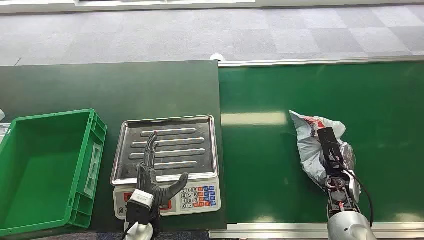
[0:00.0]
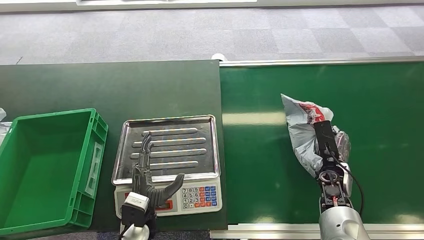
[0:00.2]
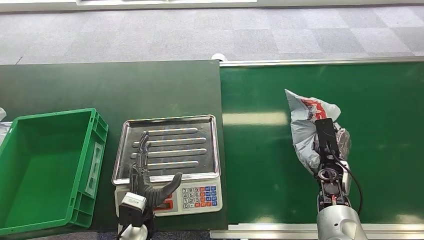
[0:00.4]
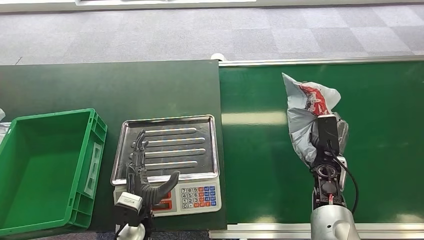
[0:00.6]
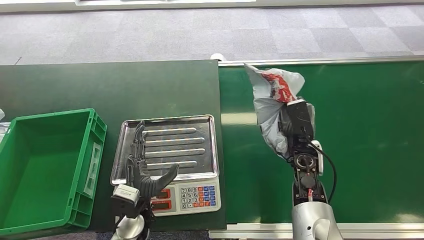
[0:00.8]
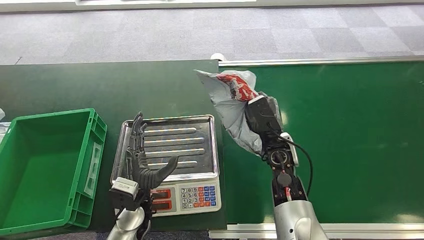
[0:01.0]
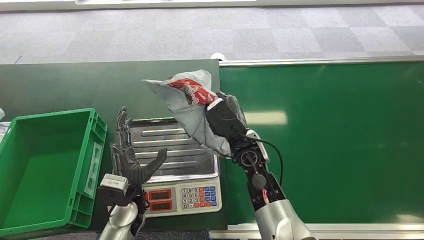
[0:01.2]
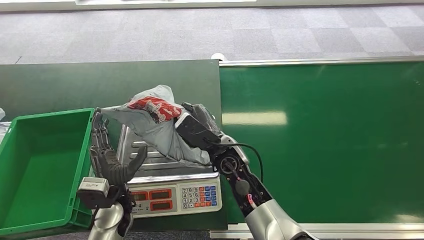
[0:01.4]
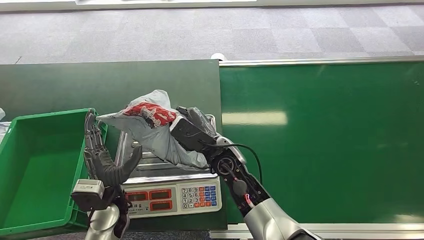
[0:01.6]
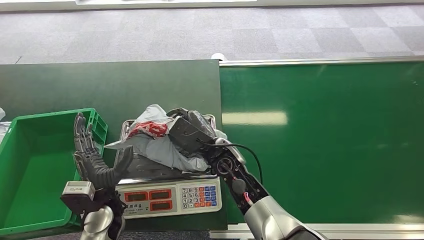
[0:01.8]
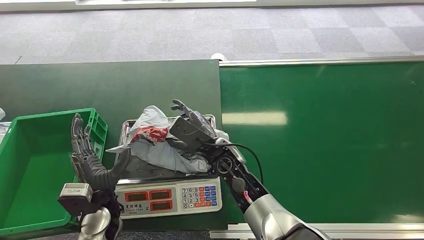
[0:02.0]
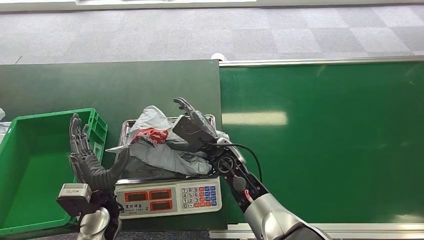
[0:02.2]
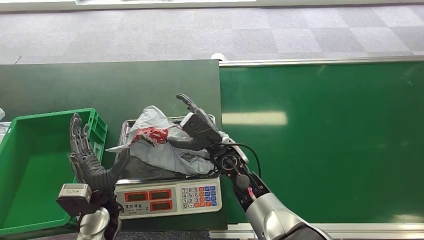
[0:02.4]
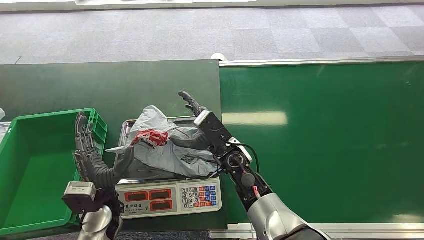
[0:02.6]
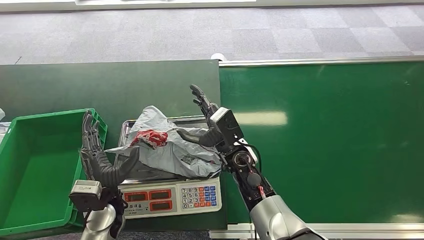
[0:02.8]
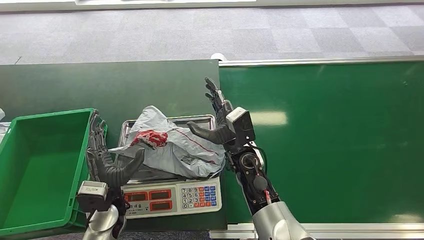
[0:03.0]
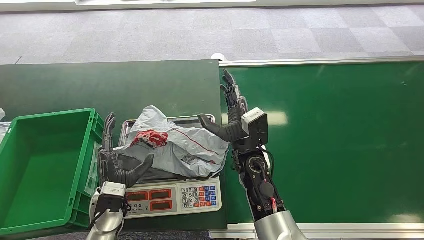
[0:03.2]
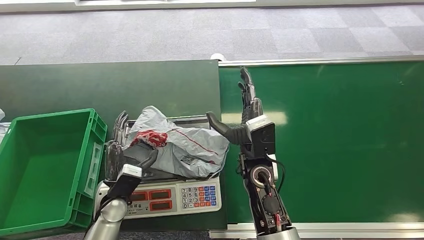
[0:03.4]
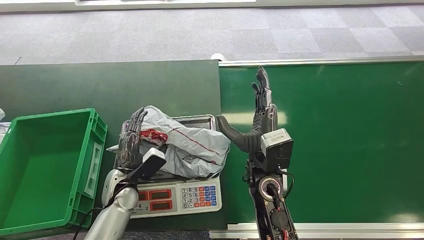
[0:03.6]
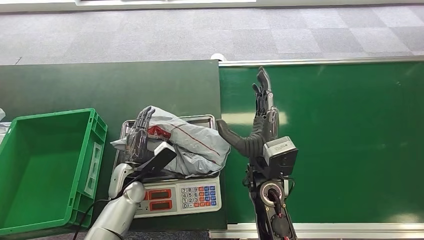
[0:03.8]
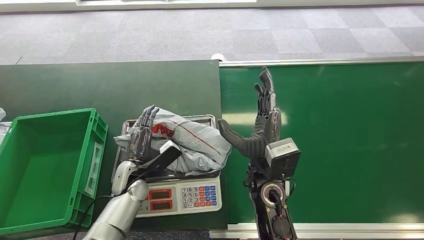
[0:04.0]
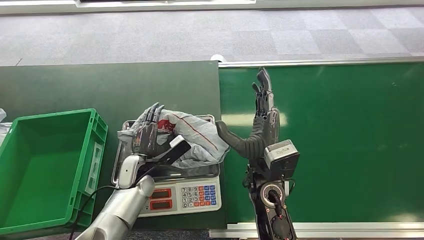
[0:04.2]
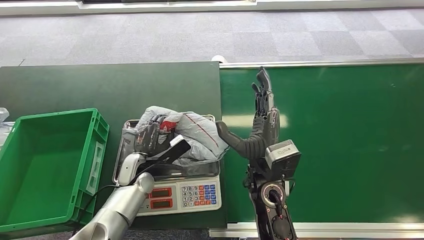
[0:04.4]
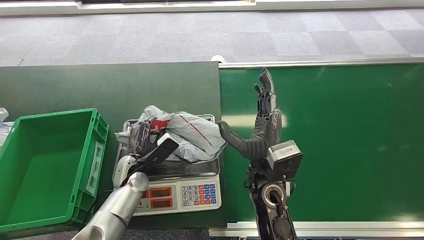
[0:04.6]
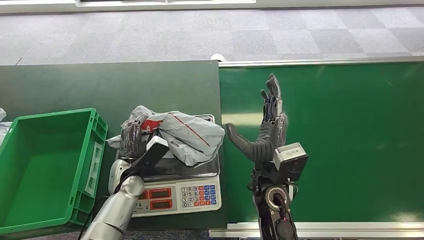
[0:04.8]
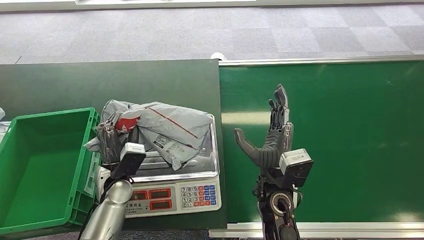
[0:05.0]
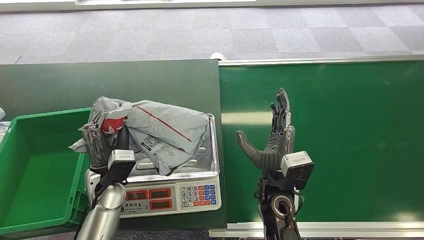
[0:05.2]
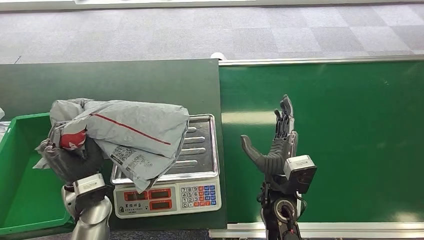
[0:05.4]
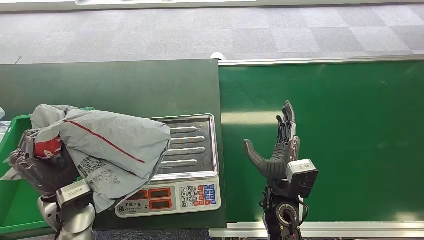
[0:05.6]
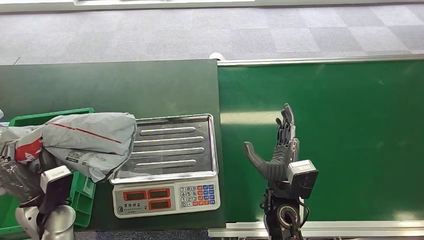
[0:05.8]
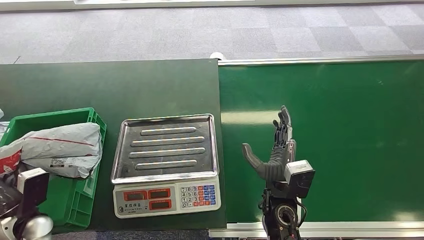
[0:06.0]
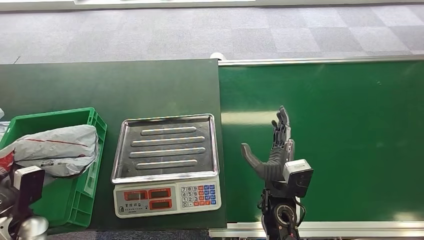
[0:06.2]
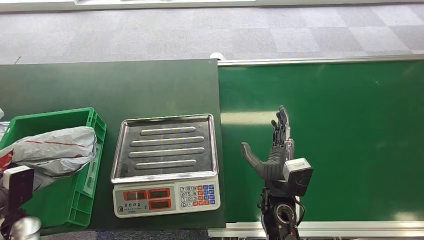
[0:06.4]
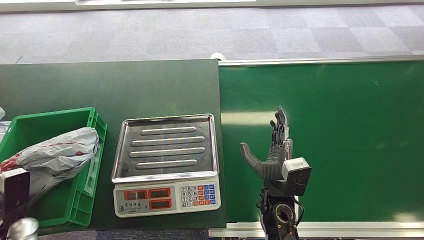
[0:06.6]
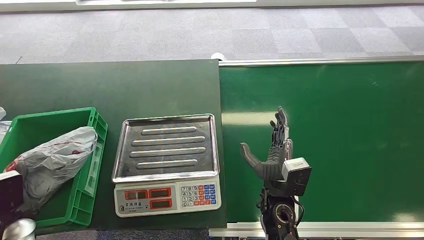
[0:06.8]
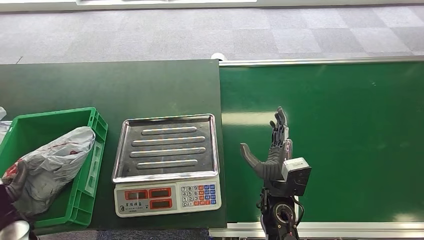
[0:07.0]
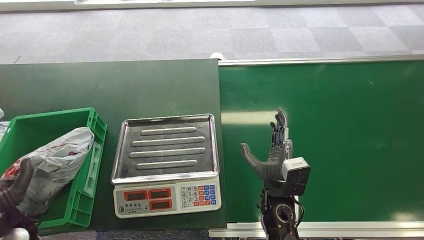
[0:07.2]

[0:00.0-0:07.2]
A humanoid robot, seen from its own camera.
Step, 0:00.0 to 0:00.6: Pick up the package from the conveyor belt.
Step, 0:01.2 to 0:02.4: Place the package onto the inbound machine.
Step, 0:04.6 to 0:05.6: Pick up the package from the inbound machine.
Step, 0:06.6 to 0:07.2: Place the package into the parcel locker.
0:05.8 to 0:07.2: The left hand shifts approximately 5 cm to the left.
